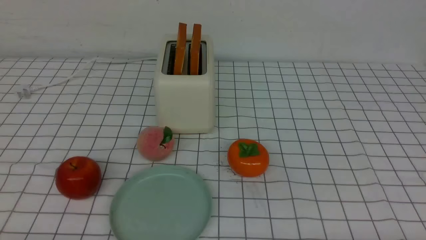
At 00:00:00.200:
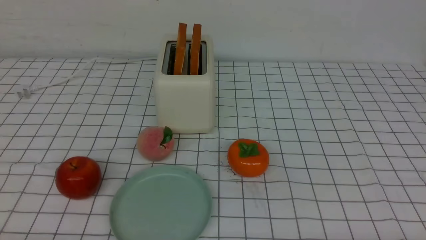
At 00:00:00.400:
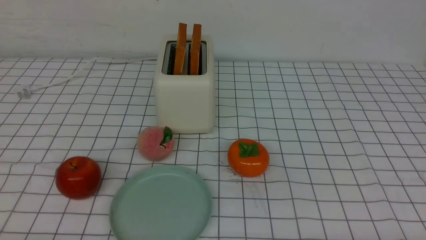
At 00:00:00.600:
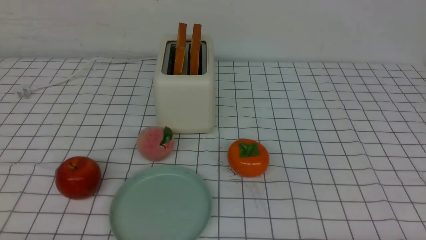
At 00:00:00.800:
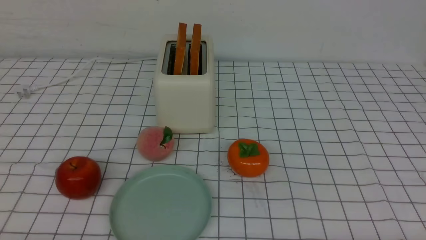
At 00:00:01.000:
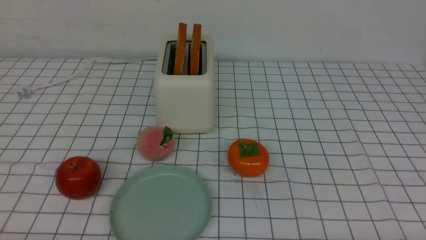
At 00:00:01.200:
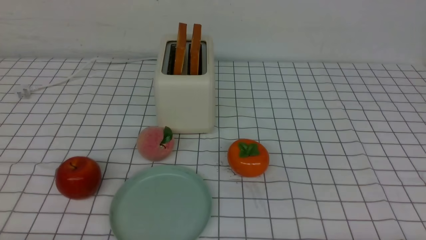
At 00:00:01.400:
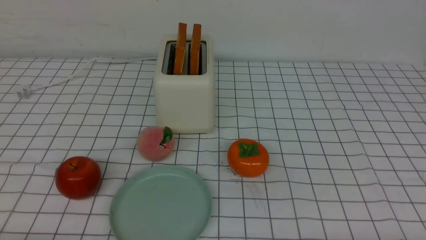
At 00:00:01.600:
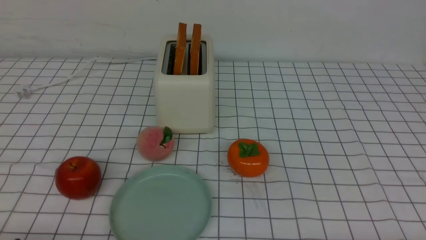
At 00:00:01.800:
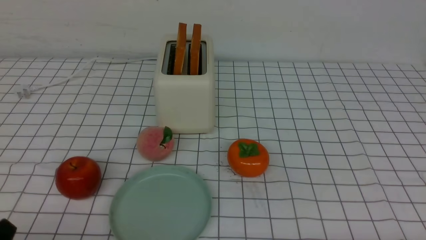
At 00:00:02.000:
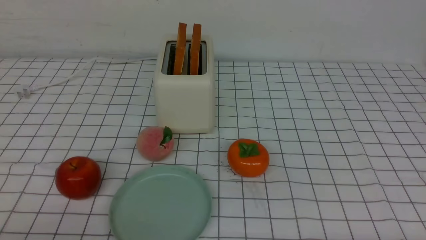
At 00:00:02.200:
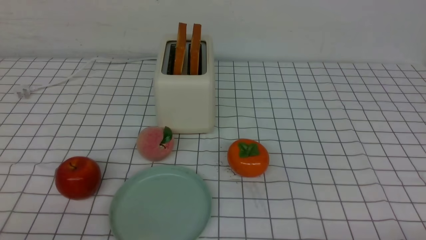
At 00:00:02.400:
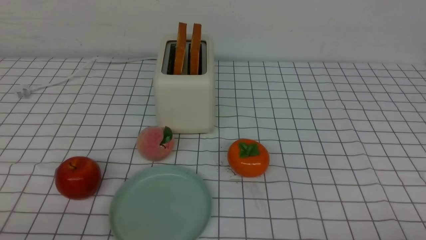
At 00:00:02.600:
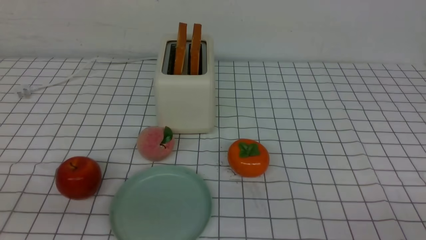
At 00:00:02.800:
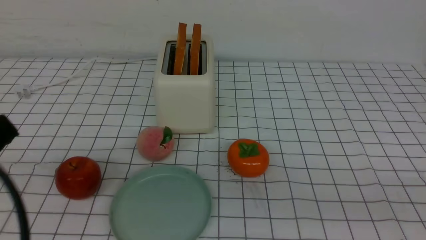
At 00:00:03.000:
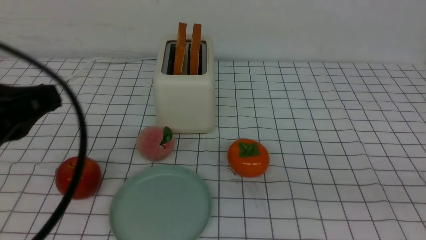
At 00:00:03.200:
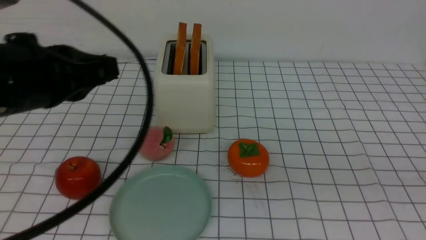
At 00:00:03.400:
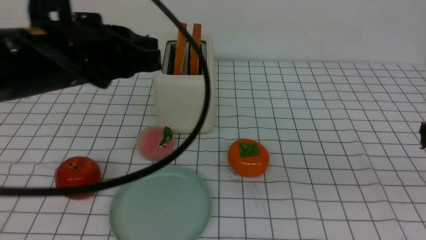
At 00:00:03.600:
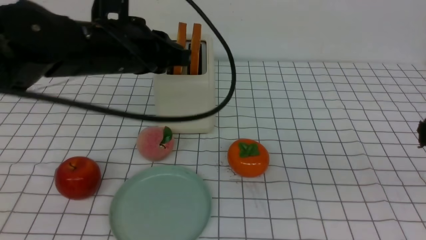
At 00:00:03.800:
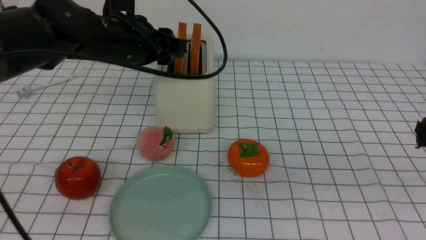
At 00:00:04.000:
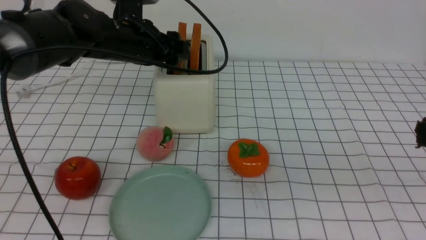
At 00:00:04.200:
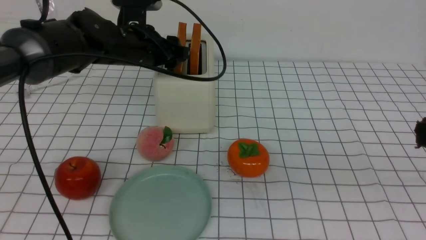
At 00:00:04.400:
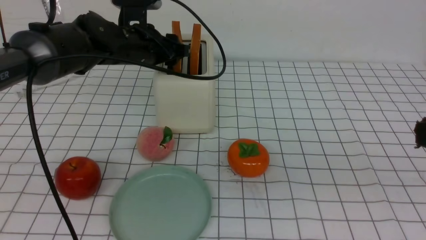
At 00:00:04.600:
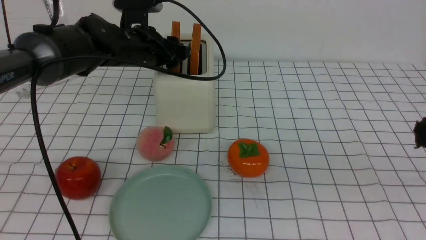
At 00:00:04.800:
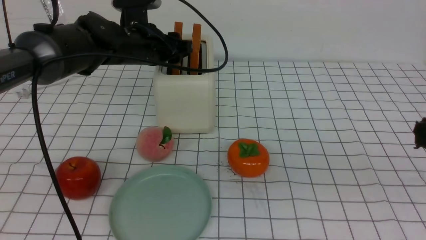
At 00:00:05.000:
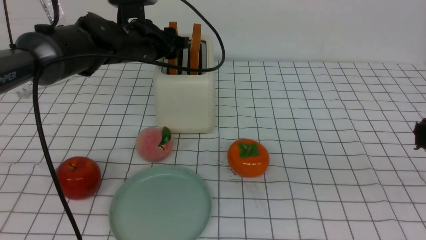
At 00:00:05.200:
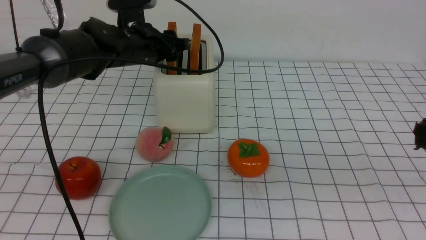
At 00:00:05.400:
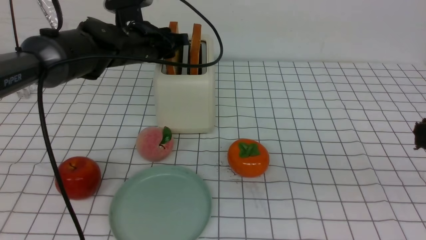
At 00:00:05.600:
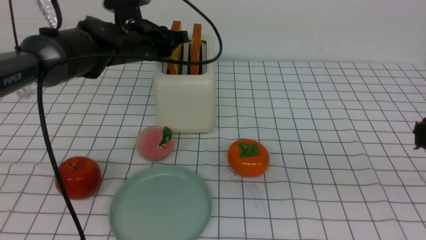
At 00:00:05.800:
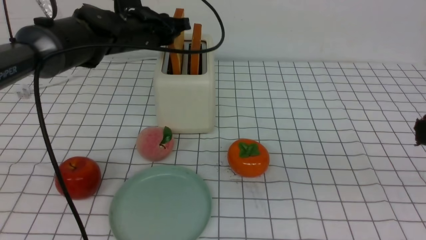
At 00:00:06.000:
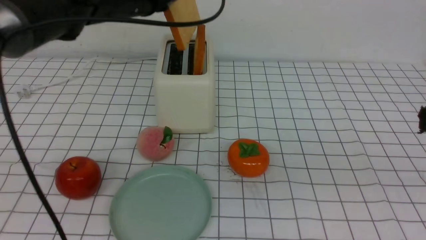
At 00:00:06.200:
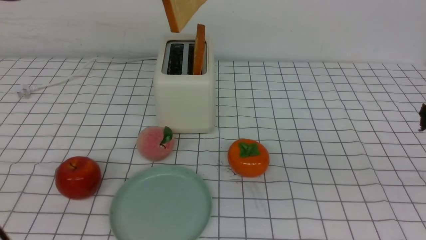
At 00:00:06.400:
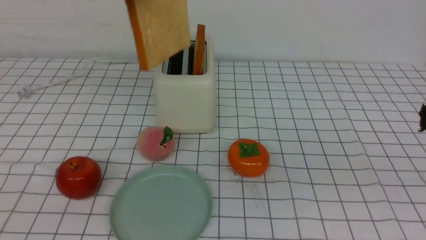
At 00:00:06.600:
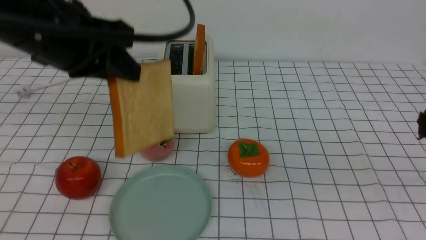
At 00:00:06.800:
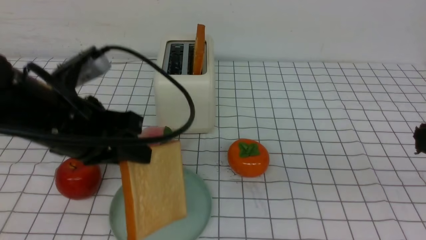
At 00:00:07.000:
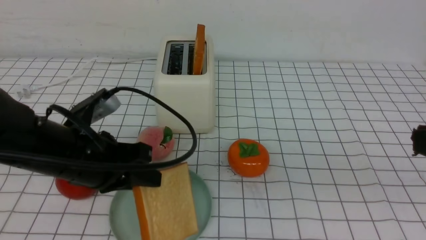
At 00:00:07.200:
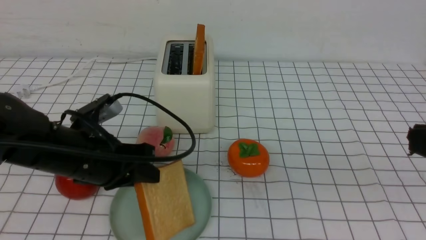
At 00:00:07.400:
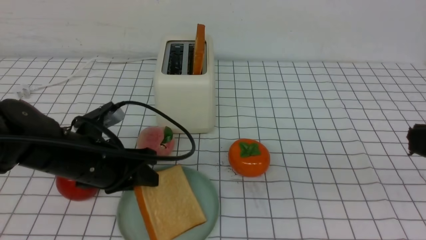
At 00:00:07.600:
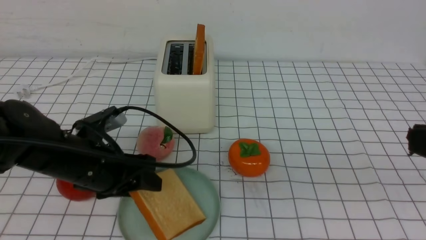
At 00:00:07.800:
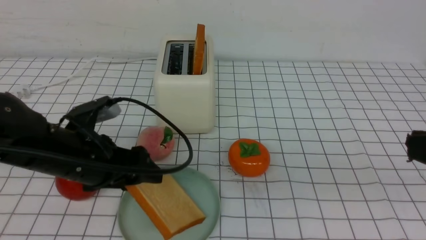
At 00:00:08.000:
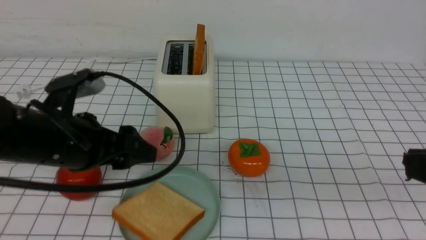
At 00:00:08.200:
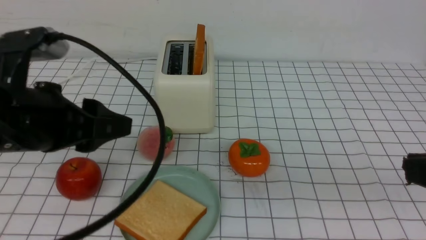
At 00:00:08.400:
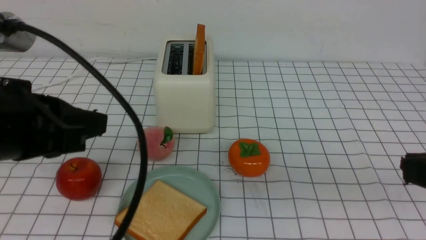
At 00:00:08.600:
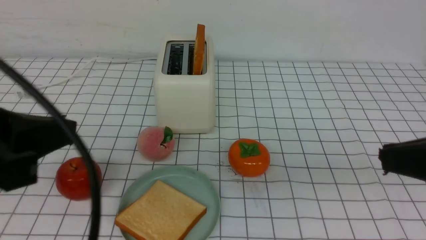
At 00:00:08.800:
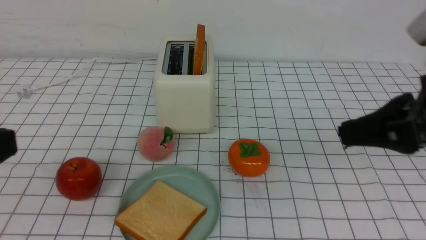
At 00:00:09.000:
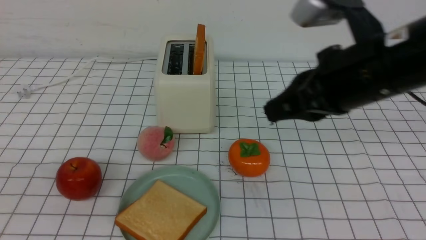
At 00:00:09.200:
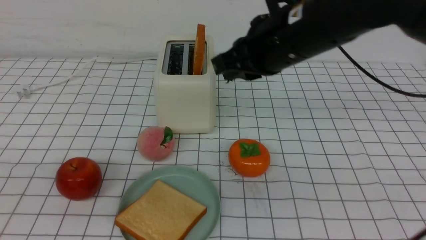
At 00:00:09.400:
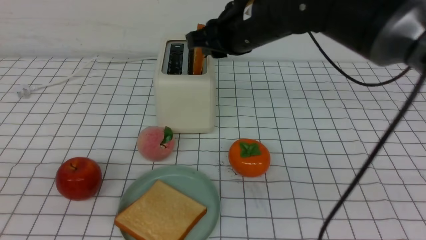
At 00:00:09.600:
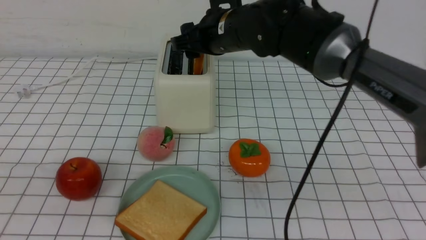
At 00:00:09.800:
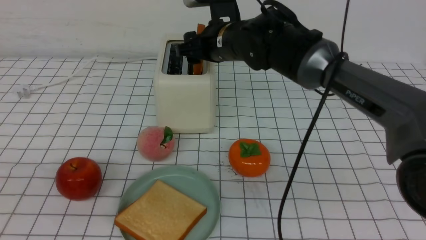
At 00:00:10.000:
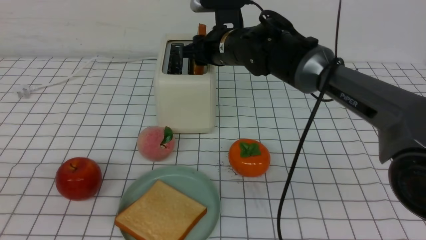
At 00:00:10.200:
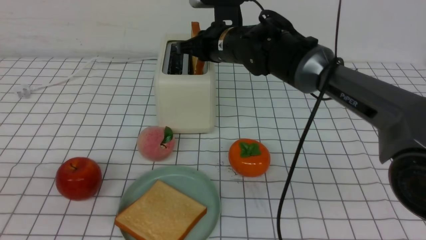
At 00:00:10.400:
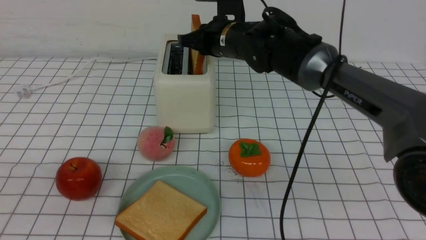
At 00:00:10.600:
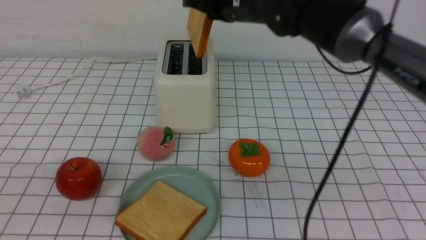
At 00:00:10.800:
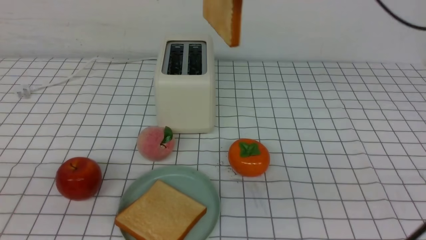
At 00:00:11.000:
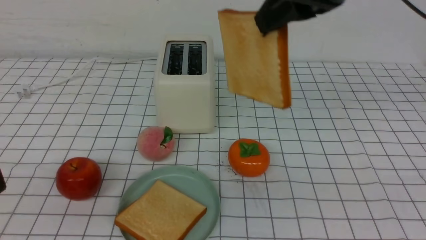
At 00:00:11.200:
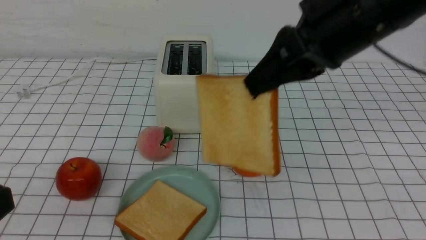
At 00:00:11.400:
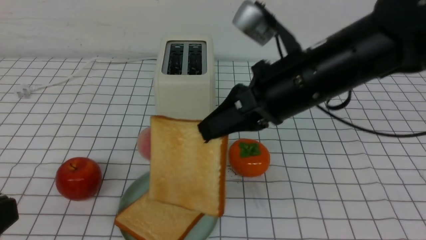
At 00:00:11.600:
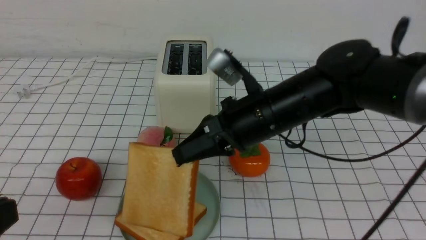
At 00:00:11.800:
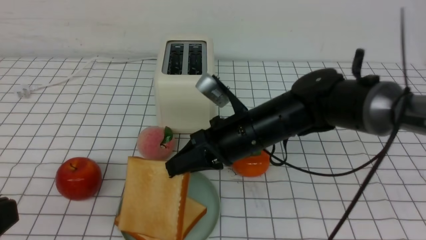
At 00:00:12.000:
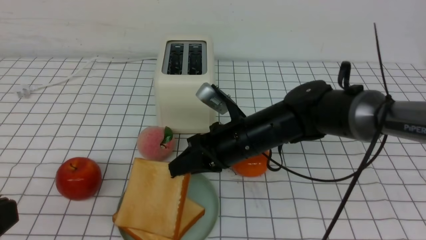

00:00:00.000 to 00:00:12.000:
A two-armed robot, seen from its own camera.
Task of the whole recording: take toasted bread from bread machine on white checkered table place on plate.
Step, 00:00:00.000 to 00:00:05.800: use the left arm to take out a slice of bread.
Step, 00:00:06.000 to 00:00:08.200: use the left arm to put a slice of bread into the empty plate.
Step, 00:00:08.400 to 00:00:10.400: use the right arm to take out a slice of bread.
00:00:01.600 to 00:00:03.000: The left gripper travels upward and forward by roughly 20 cm, and closes.
00:00:03.000 to 00:00:04.400: The left gripper shifts roughly 30 cm forward, and opens up.
00:00:04.400 to 00:00:06.000: The left gripper heads upward, covering some 10 cm, and closes up.
00:00:06.000 to 00:00:07.600: The left gripper travels downward and backward by some 20 cm, and opens up.
00:00:07.600 to 00:00:09.000: The left gripper is displaced backward and upward by approximately 25 cm, and closes, while the right gripper travels forward and to the left by about 20 cm.
00:00:09.000 to 00:00:10.400: The right gripper is displaced forward and to the left by some 20 cm, and opens, then closes once more.
00:00:10.400 to 00:00:12.000: The right gripper heads downward and backward, covering some 15 cm.

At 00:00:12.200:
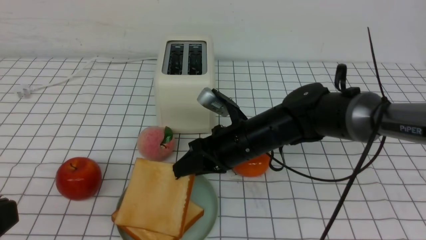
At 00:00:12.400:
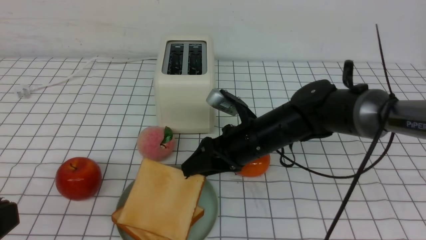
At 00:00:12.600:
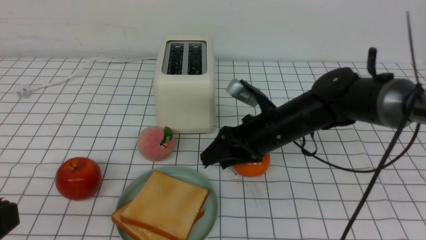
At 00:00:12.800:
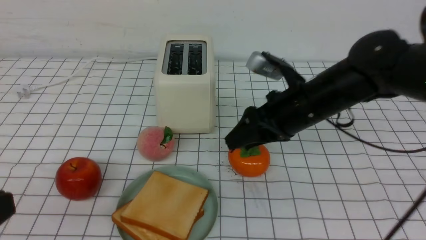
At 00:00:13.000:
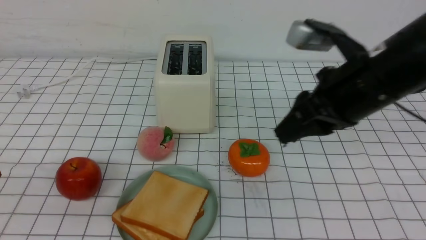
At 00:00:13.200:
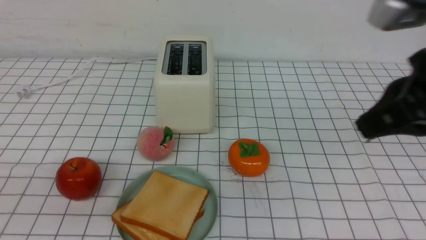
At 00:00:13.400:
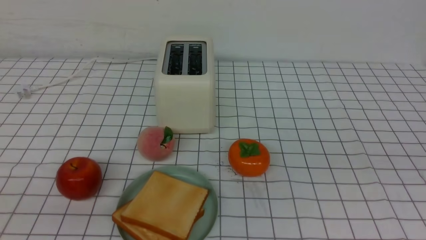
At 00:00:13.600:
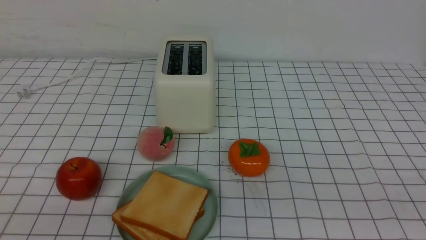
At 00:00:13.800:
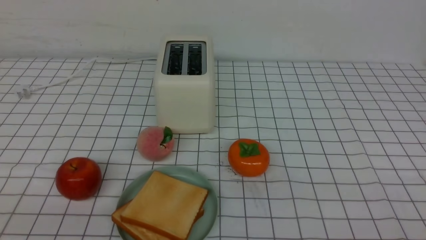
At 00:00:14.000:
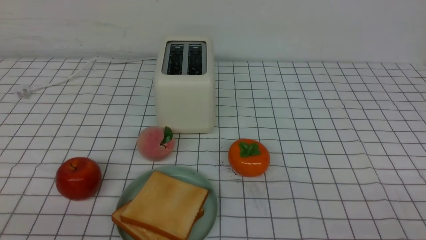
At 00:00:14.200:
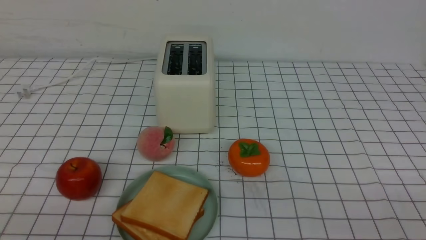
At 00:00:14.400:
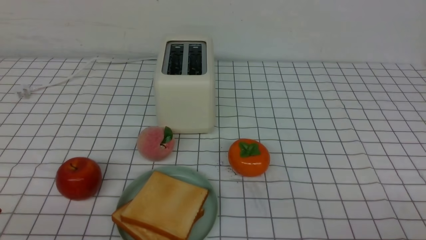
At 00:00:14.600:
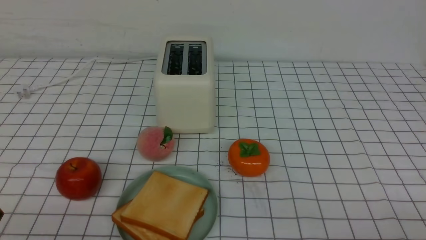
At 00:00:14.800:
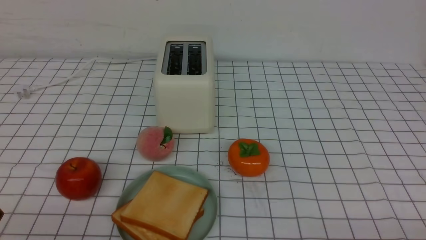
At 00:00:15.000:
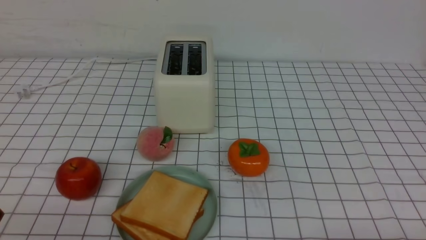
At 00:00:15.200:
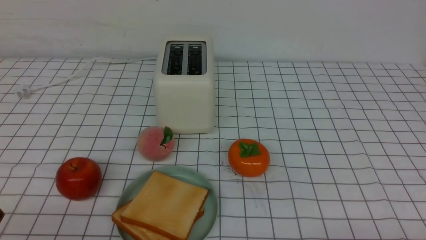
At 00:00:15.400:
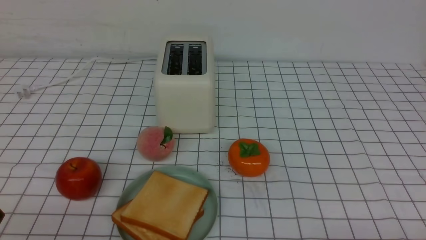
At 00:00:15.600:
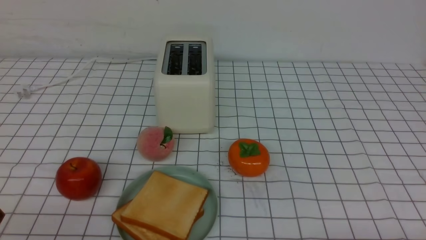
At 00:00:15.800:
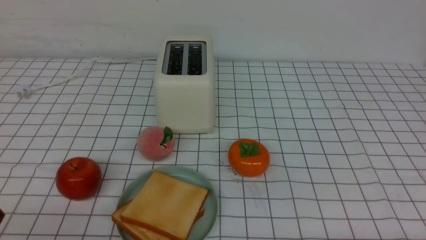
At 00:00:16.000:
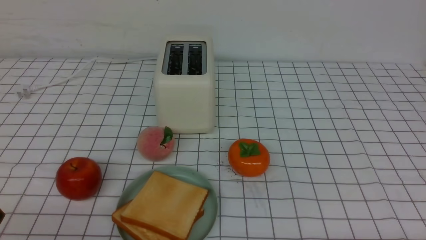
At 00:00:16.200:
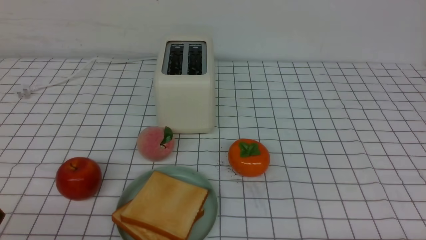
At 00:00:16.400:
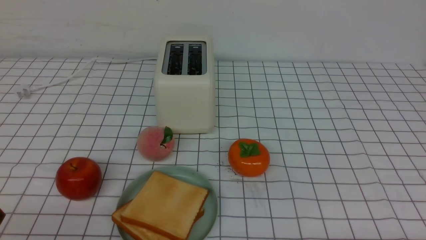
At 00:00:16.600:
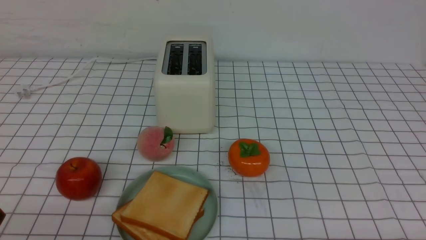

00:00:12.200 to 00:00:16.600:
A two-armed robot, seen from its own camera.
Task of the whole recording: take toasted bread from bread machine on white checkered table place on plate.
00:00:12.200 to 00:00:13.600: The right gripper travels backward, to the right and upward by some 40 cm, and closes its fingers.
